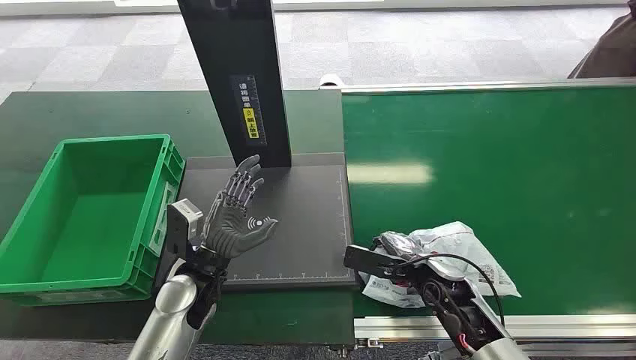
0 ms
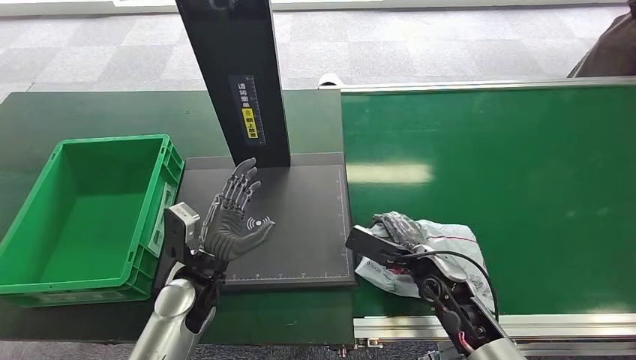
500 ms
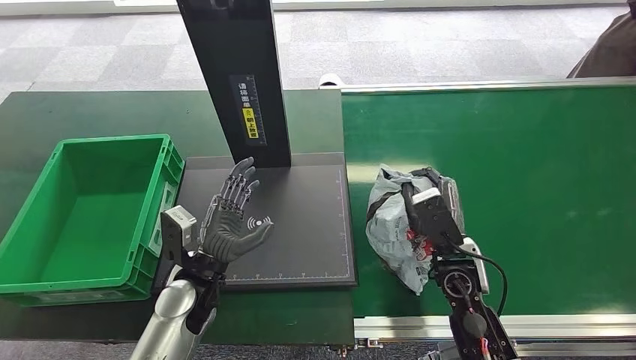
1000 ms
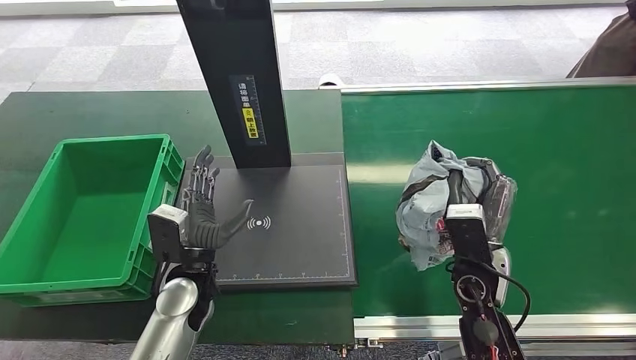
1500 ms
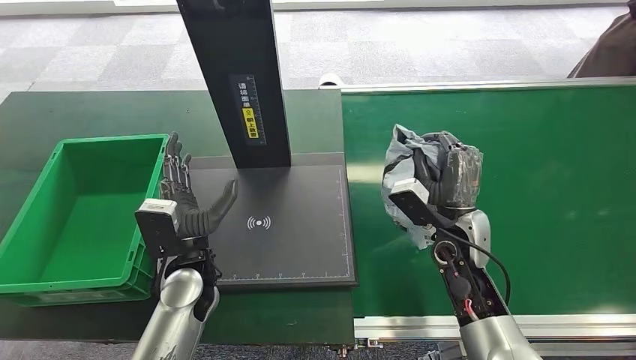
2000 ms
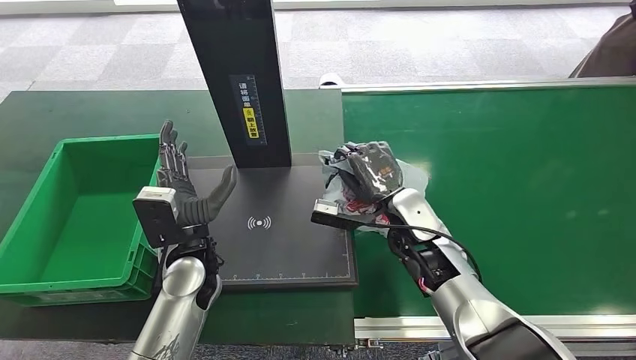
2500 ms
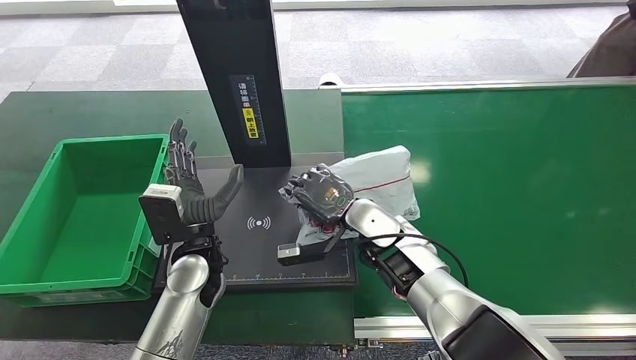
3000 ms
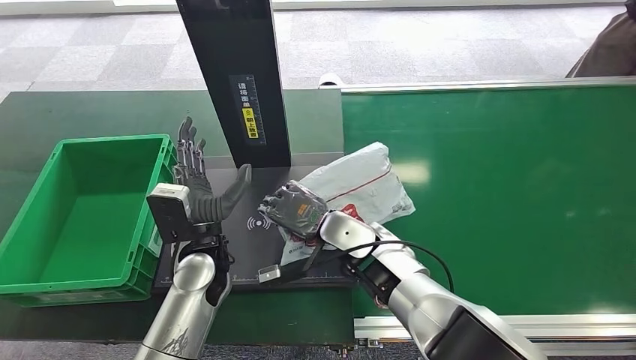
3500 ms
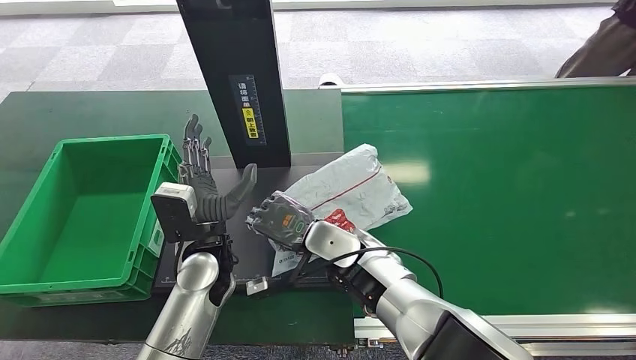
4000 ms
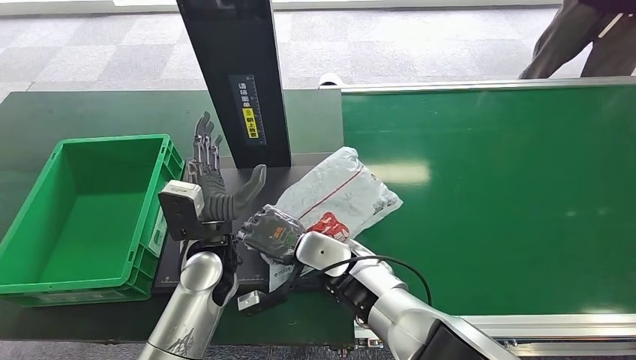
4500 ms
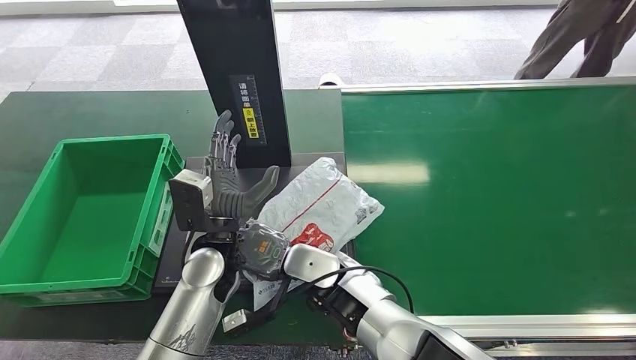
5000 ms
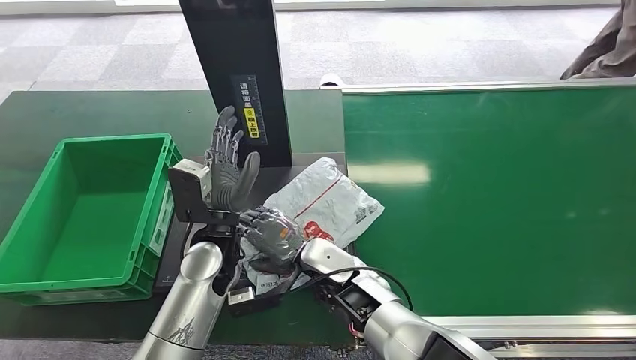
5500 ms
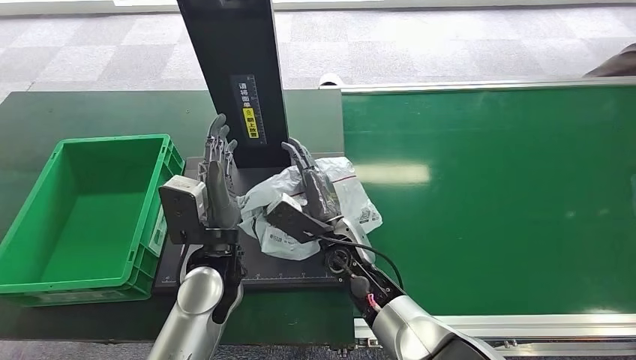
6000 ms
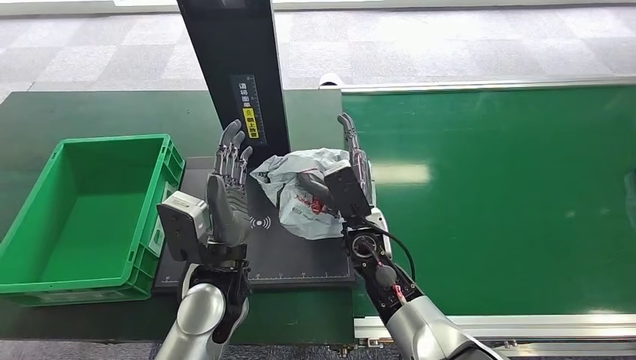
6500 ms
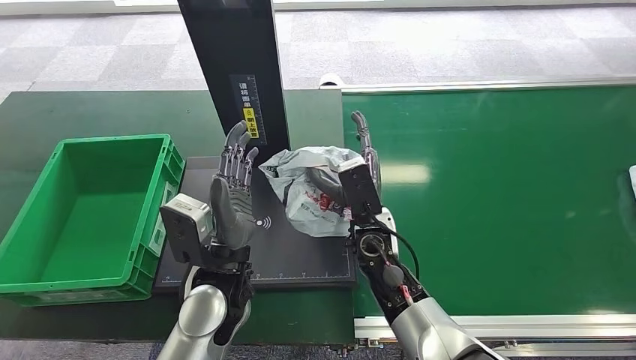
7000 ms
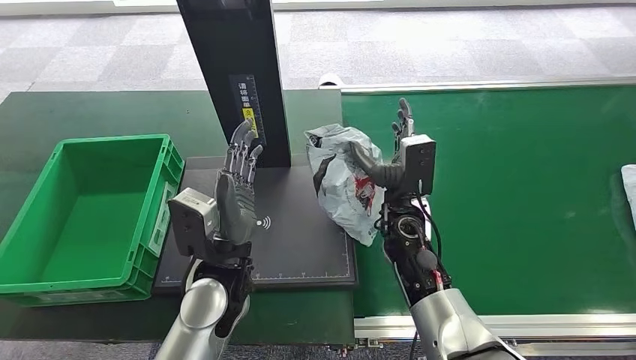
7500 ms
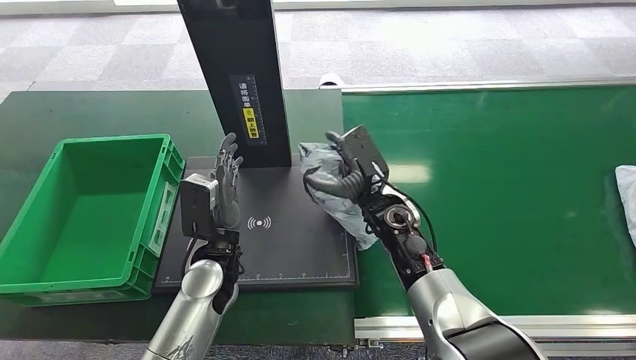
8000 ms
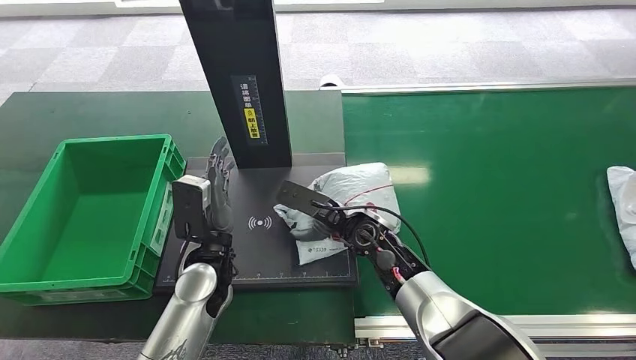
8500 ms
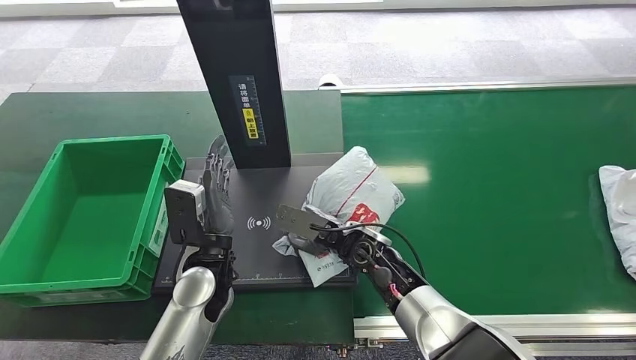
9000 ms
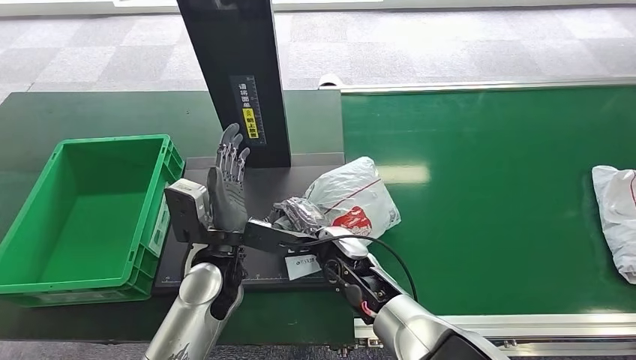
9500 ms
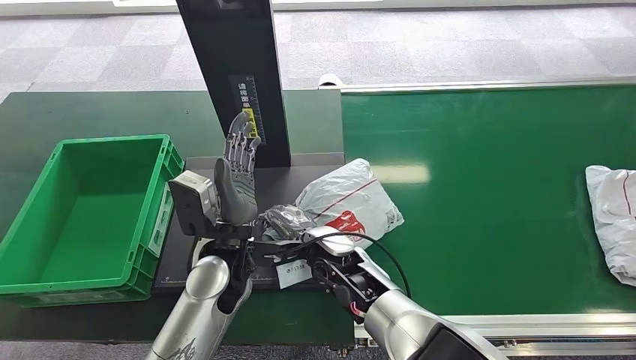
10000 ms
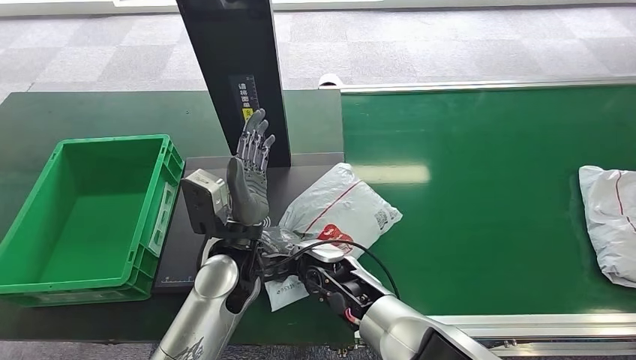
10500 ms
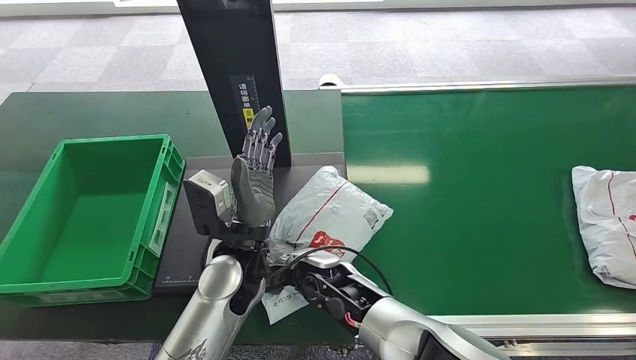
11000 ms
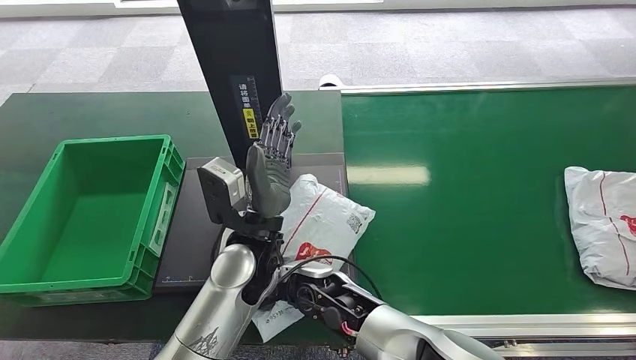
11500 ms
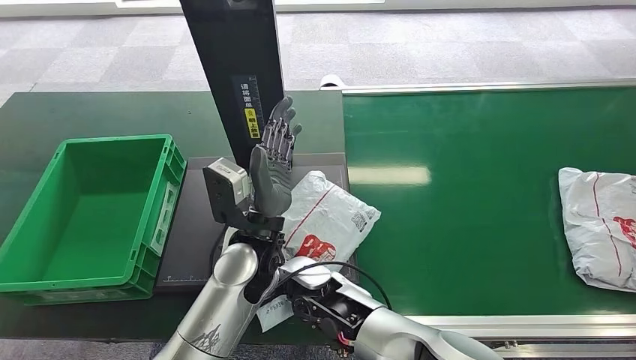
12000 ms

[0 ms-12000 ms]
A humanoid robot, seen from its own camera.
Step, 0 ms to 1000 ms: Pick up the package from the conveyor belt.
Step, 1500 ms to 10500 ms: Place the package onto the inbound machine.
4000 ms to 6000 ms: The left hand ends up about 5 cm from where it was.
6000 ms to 8000 ms: The left hand moves about 5 cm, while the right hand goes roughly 10 cm to the right and forward.
8000 ms to 10000 ms: The right hand shifts about 10 cm to the left and backward.

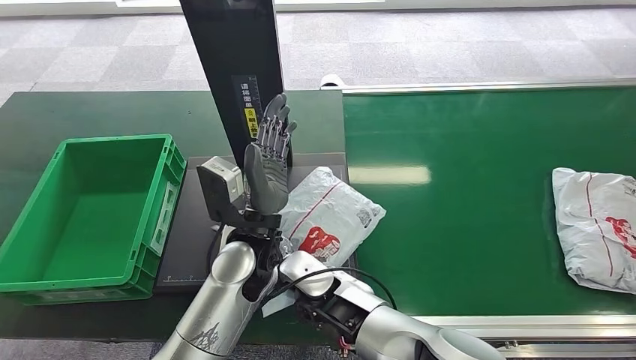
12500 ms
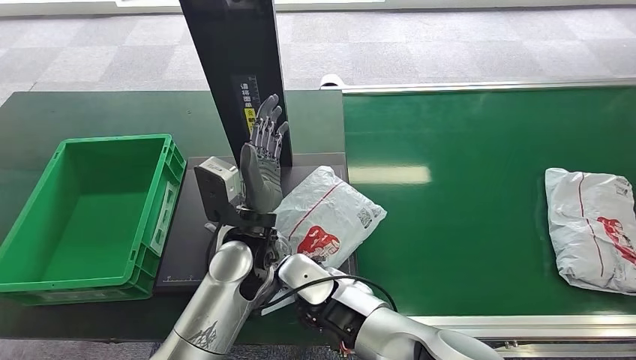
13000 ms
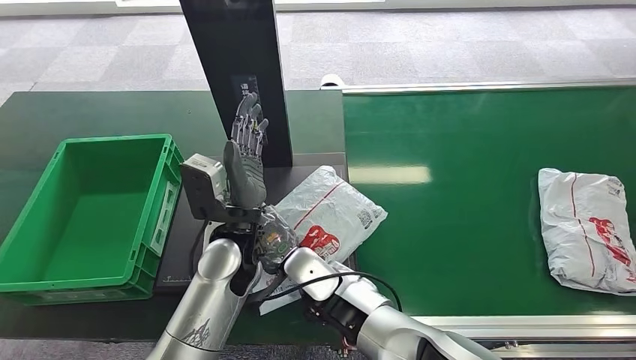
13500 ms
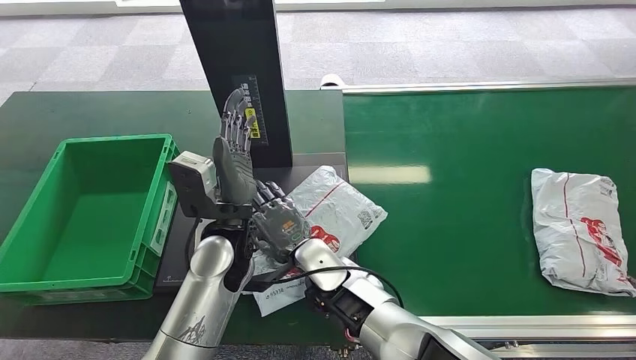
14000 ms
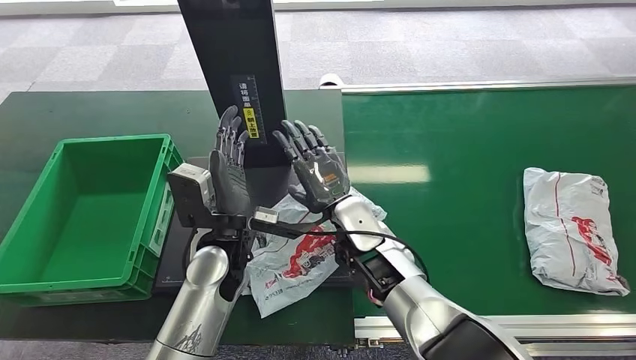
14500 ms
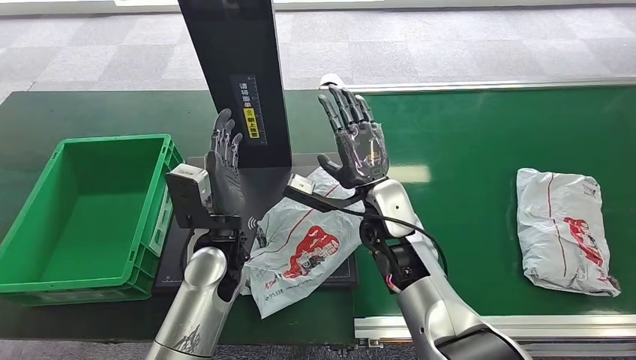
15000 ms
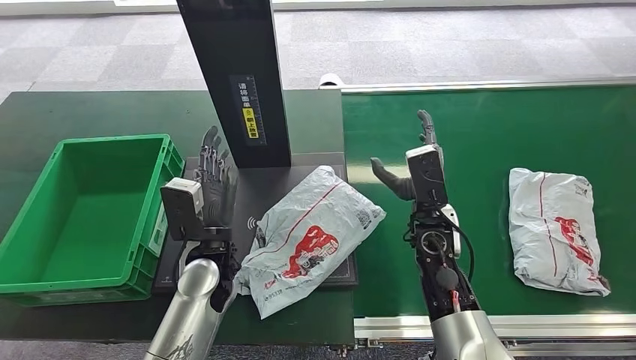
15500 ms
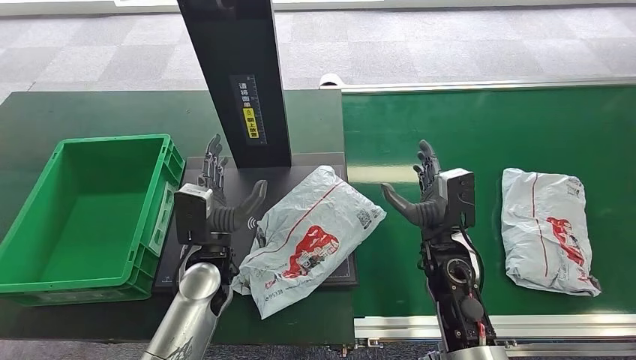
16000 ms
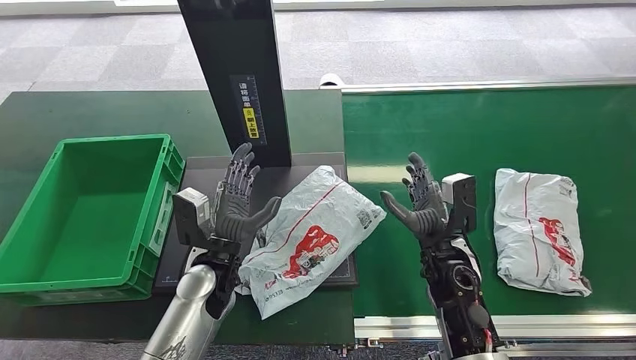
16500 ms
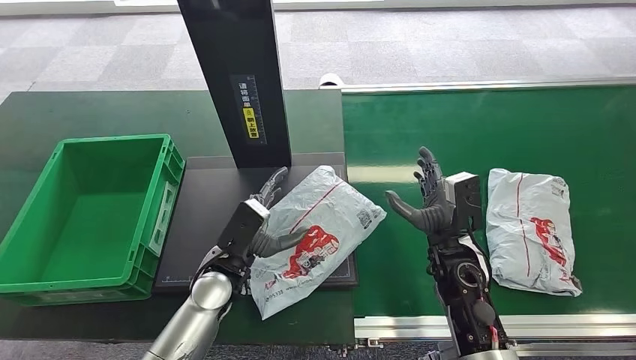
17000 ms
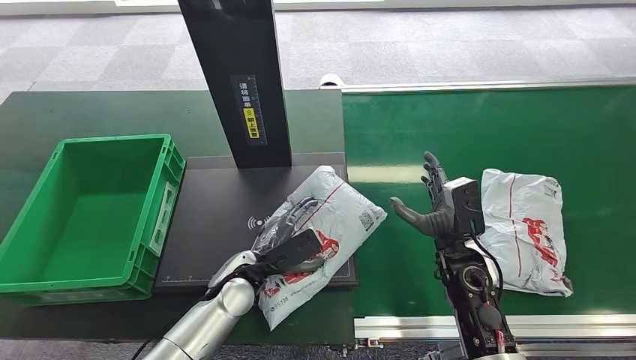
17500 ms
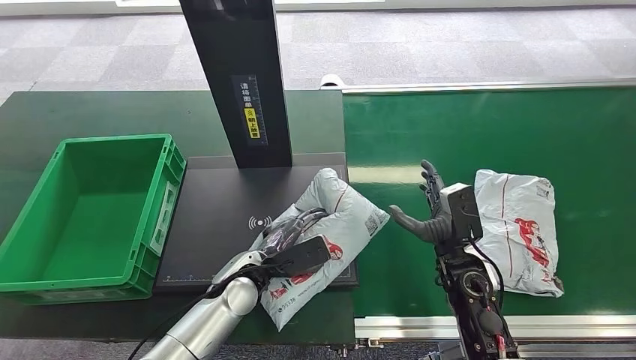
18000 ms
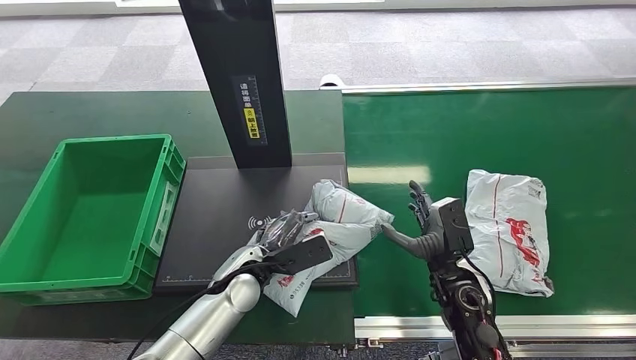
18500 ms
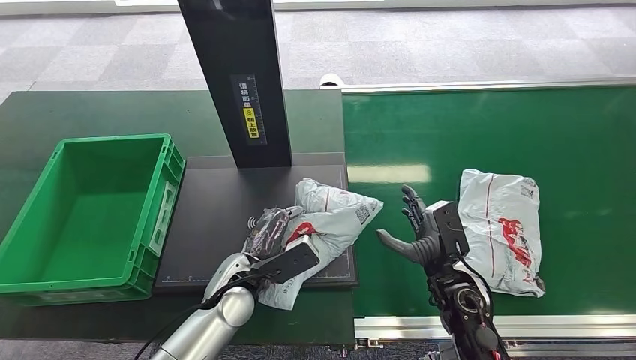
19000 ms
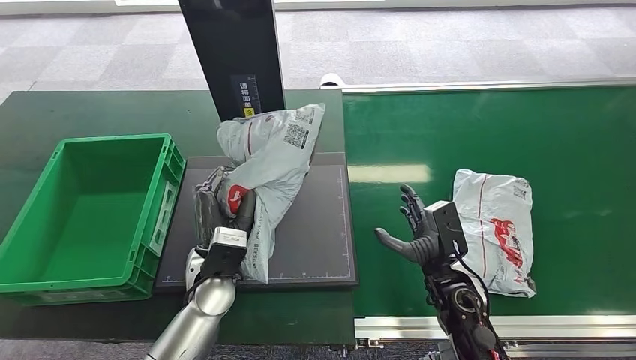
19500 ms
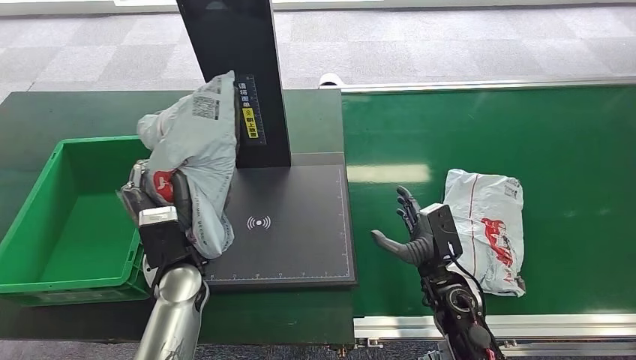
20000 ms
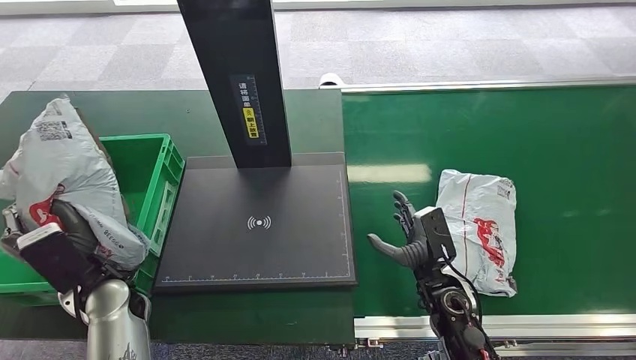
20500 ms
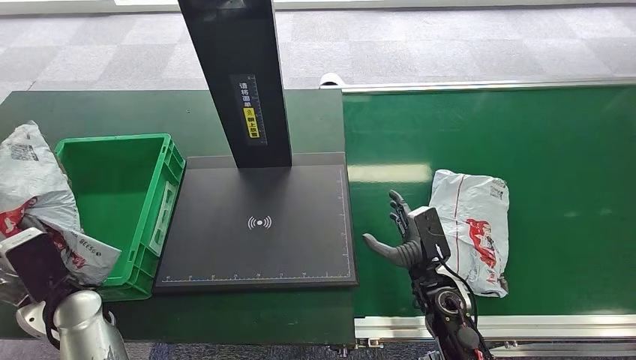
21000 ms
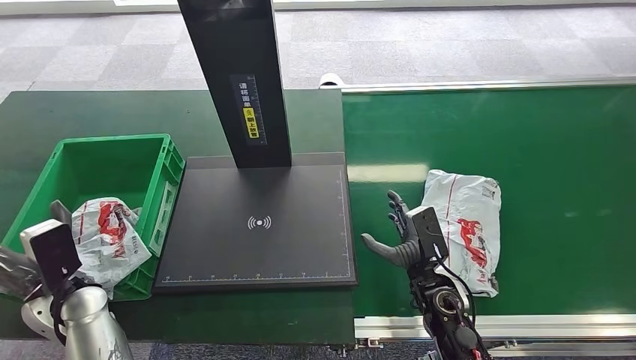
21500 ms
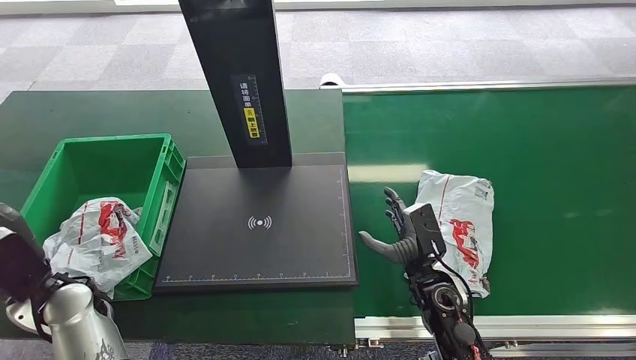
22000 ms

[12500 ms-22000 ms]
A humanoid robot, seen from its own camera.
Step, 13500 ms to 19500 ms: Pick up the package from the inbound machine.
Step, 20000 ms to 22000 ms: Place the package into the parcel locker.
